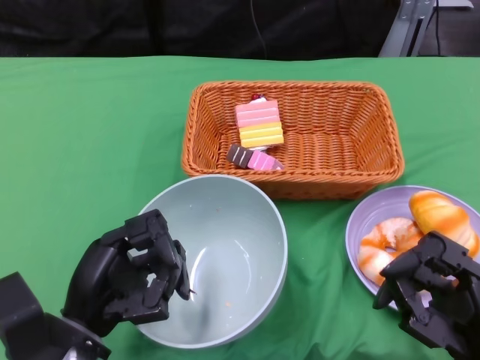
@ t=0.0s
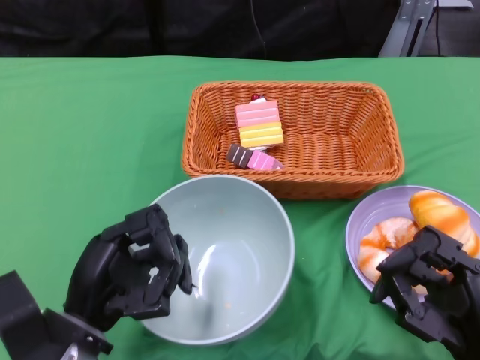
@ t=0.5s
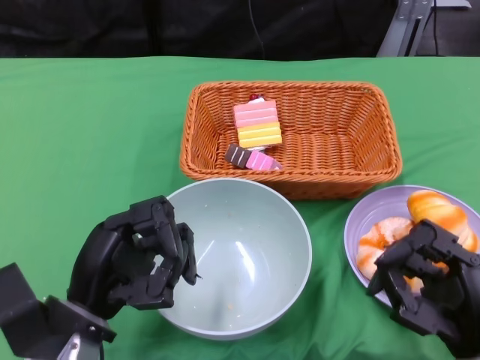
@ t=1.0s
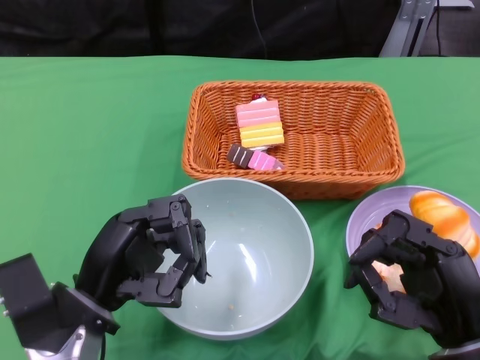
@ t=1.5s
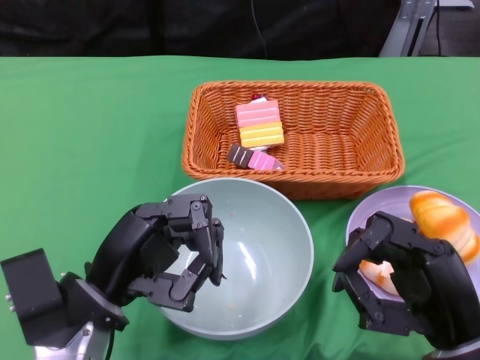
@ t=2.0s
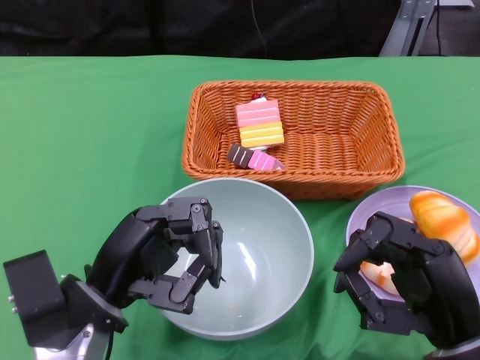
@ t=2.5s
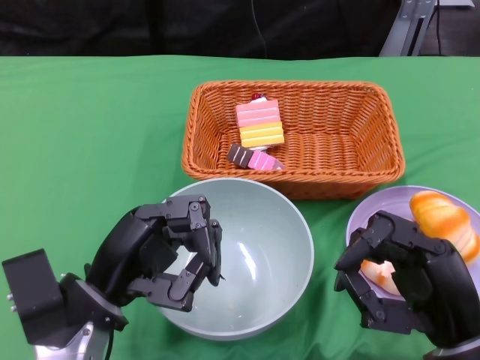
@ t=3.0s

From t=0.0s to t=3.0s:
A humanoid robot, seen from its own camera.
From t=0.0s to t=3.0s: The hands stay close to where they were, moving slightly.

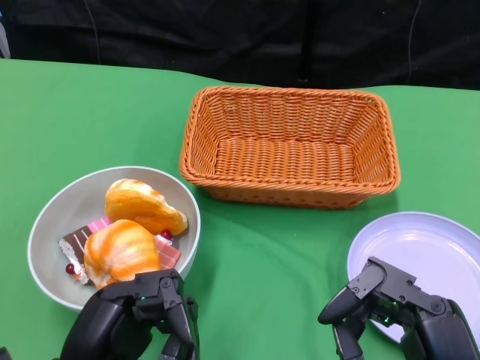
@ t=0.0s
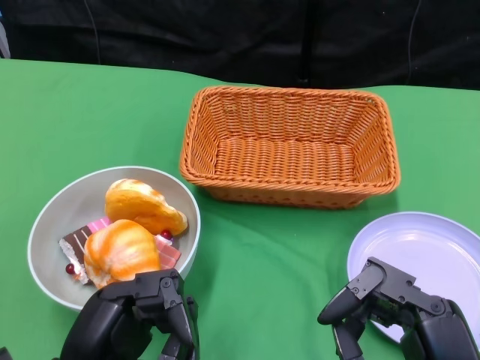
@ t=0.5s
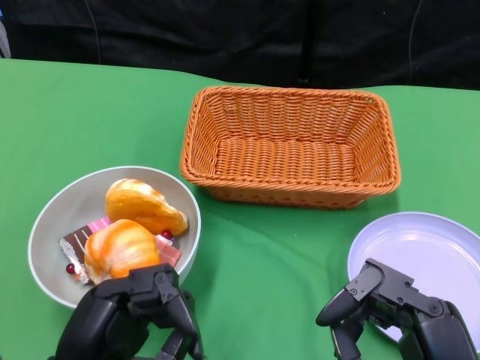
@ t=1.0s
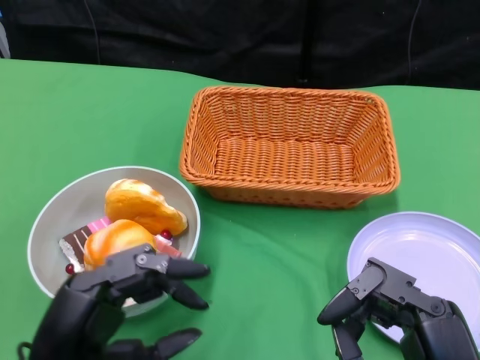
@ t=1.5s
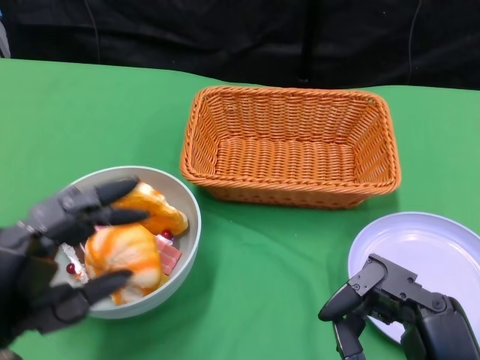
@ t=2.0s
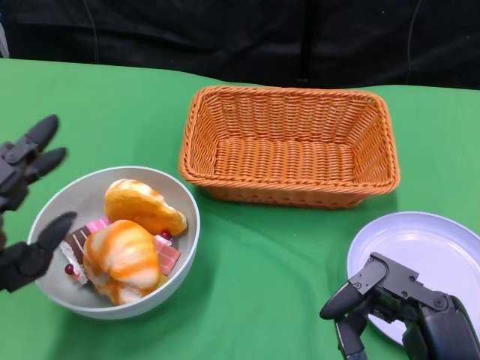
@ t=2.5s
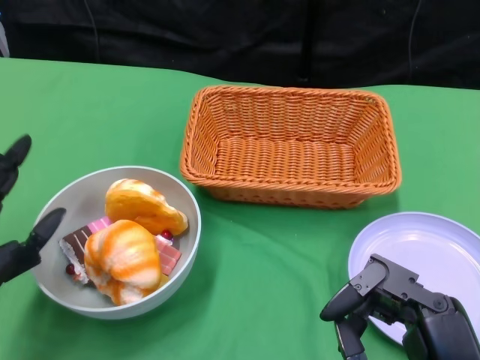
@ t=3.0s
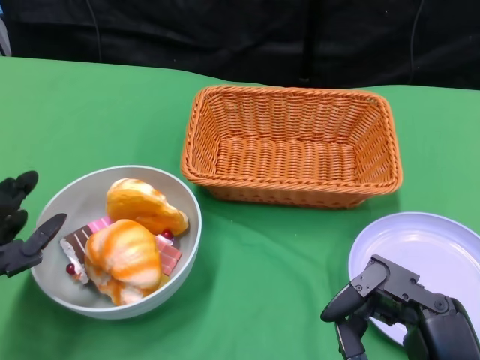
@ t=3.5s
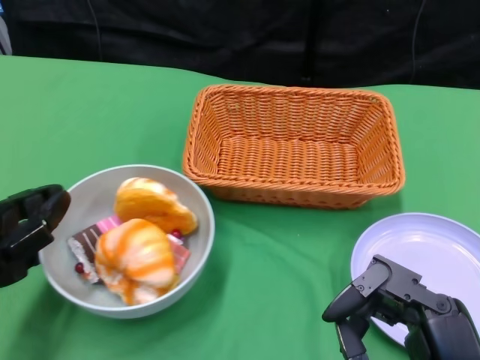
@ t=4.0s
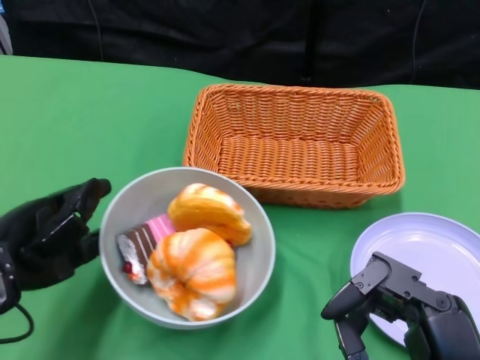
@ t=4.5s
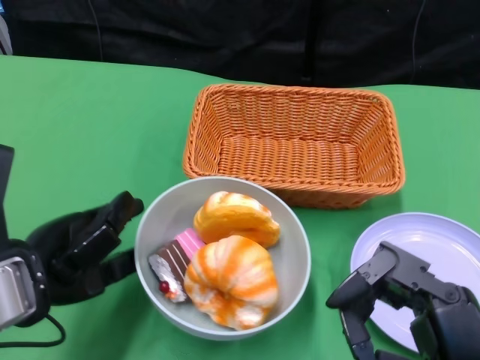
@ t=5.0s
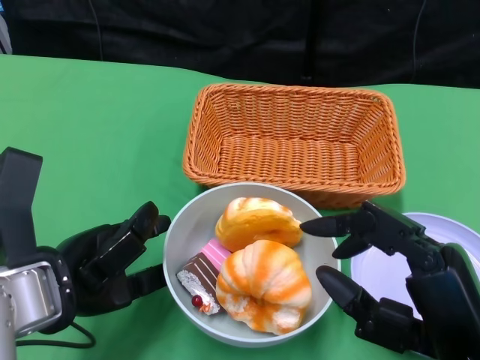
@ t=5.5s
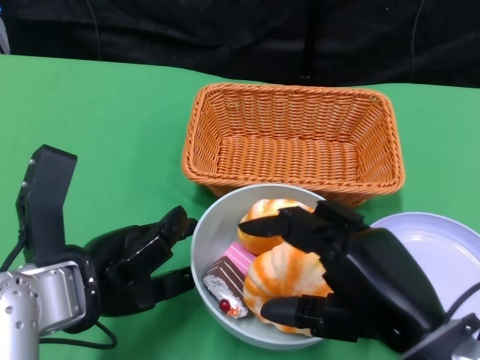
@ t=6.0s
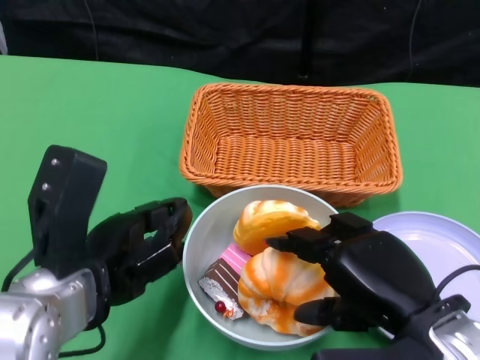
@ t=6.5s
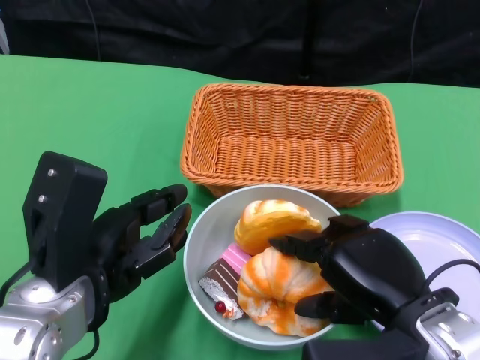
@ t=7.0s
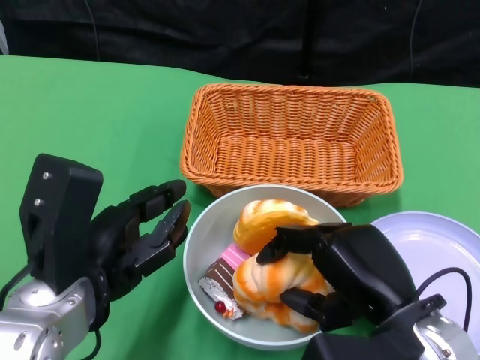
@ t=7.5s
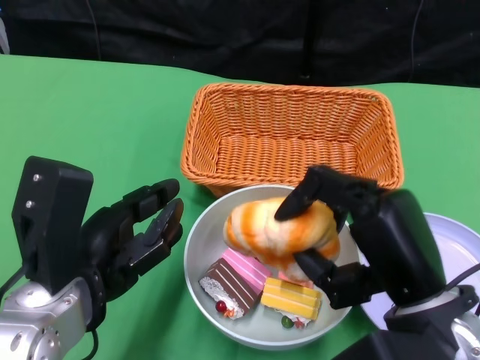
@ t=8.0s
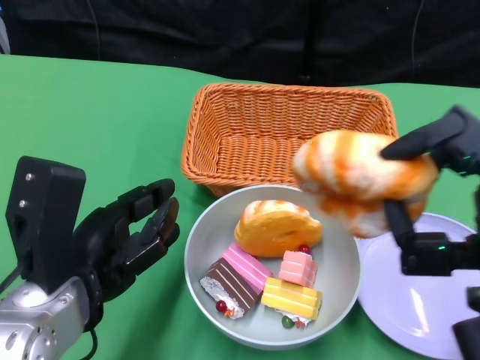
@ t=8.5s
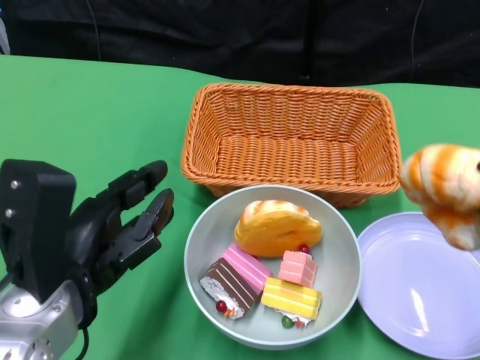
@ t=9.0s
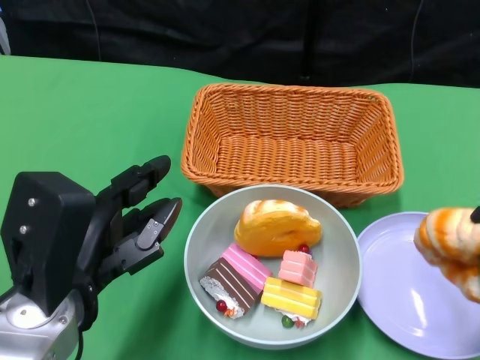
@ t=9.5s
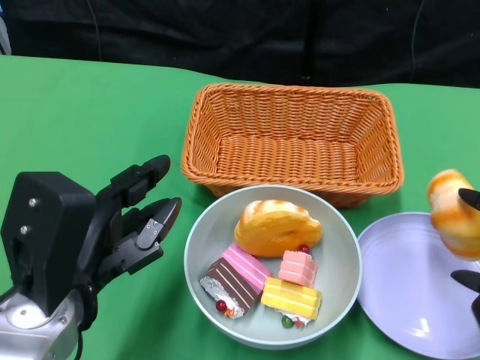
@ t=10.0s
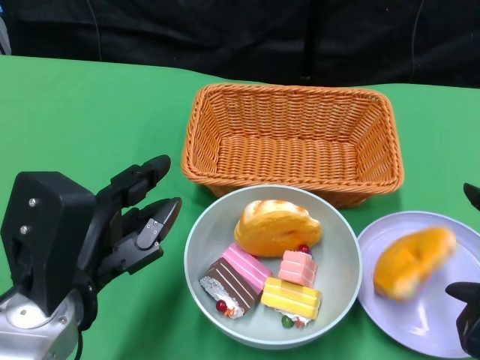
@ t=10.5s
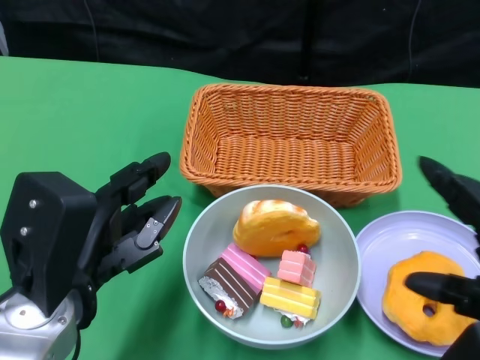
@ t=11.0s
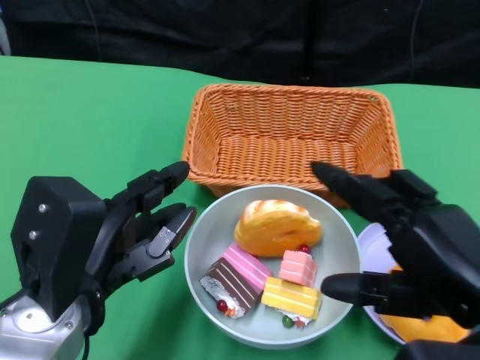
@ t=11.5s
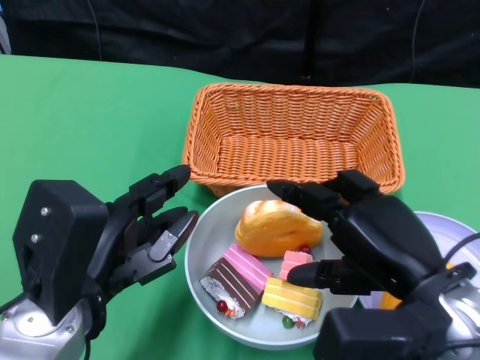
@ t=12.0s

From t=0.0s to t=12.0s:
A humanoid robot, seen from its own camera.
Step, from t=0.0s to t=5.5s: Push the bowl to the center of the table using the left gripper.
From t=2.0s to t=4.0s: The left hand goes about 10 cm forward.
From t=4.0s to t=6.0s: The left hand travels to the right by about 10 cm, while the right hand travels forward by some 5 cm.
From t=8.0s to t=10.0s: The right hand travels to the right by some 15 cm.
From t=10.0s to t=12.0s: The right hand travels to the left by about 10 cm.

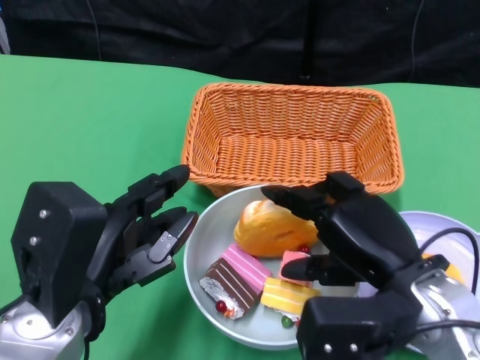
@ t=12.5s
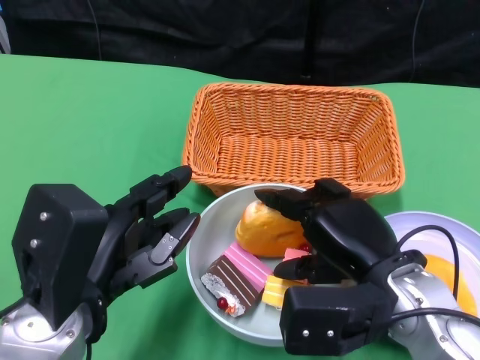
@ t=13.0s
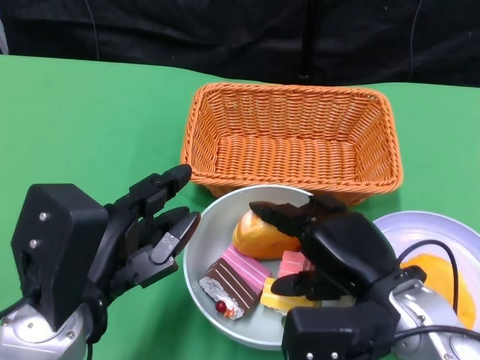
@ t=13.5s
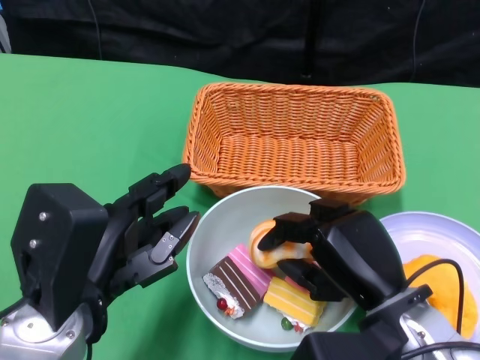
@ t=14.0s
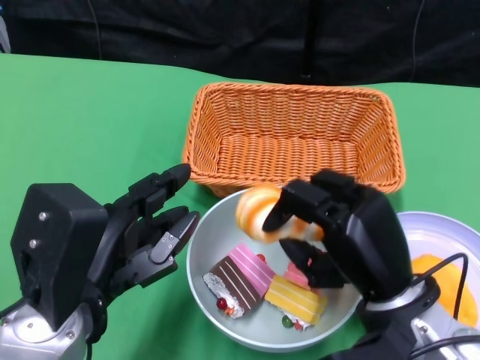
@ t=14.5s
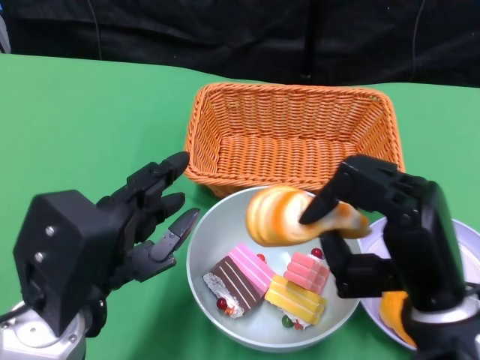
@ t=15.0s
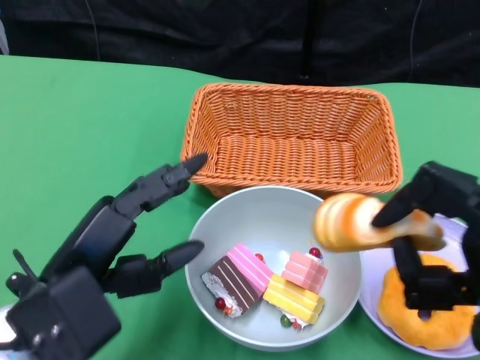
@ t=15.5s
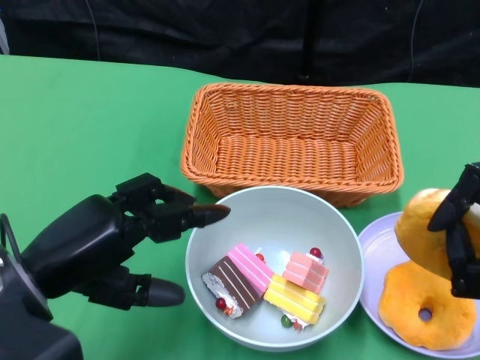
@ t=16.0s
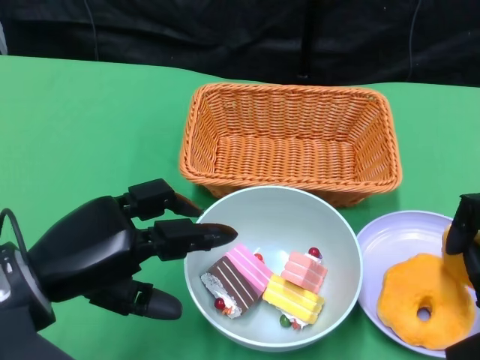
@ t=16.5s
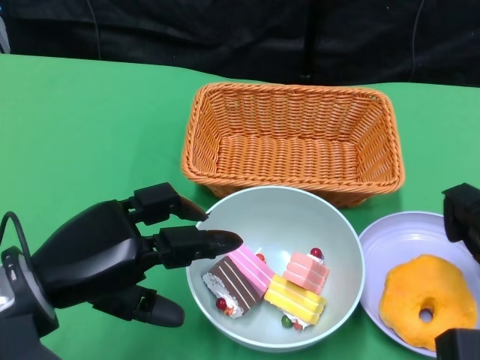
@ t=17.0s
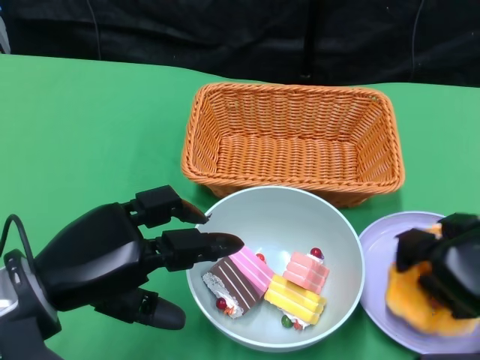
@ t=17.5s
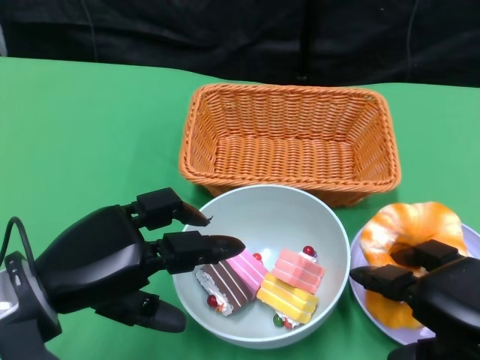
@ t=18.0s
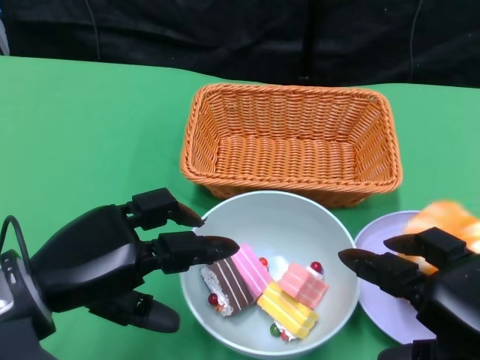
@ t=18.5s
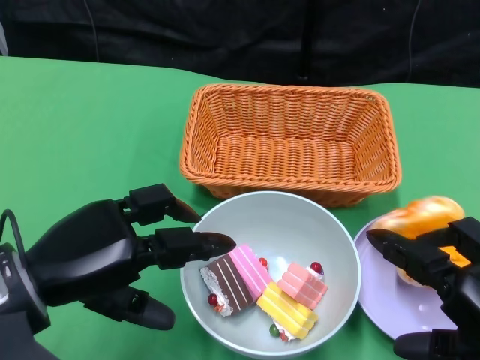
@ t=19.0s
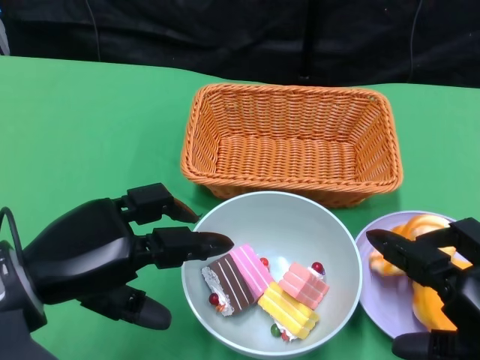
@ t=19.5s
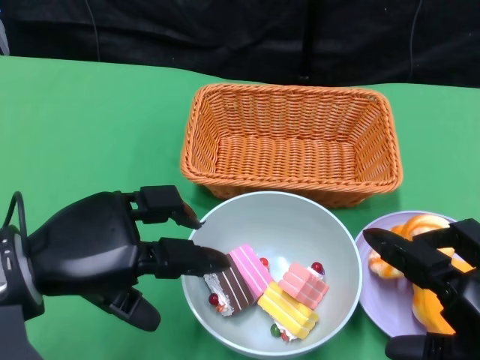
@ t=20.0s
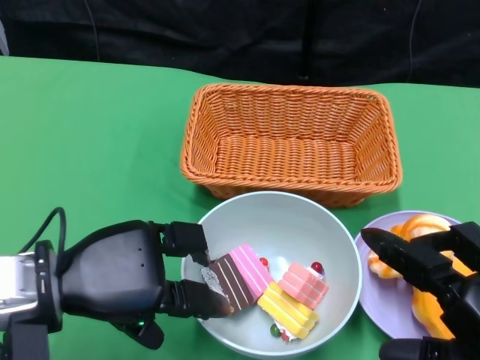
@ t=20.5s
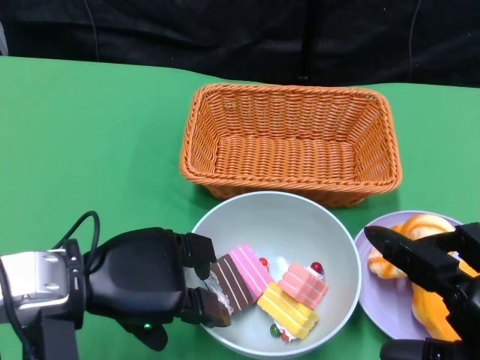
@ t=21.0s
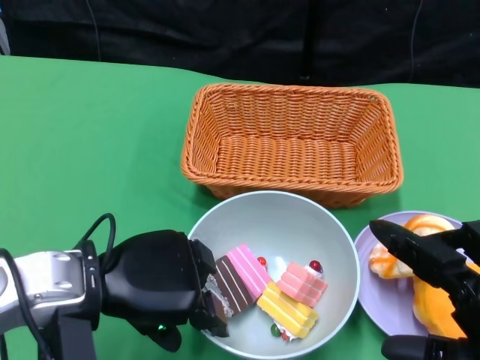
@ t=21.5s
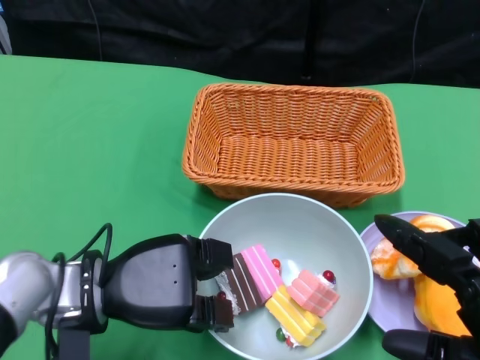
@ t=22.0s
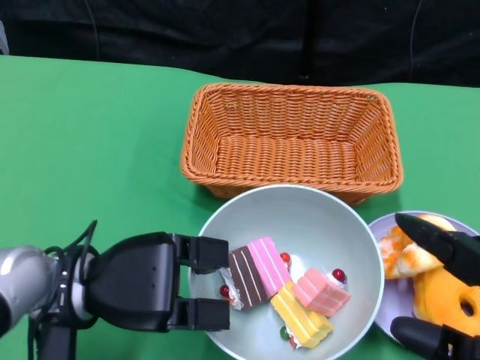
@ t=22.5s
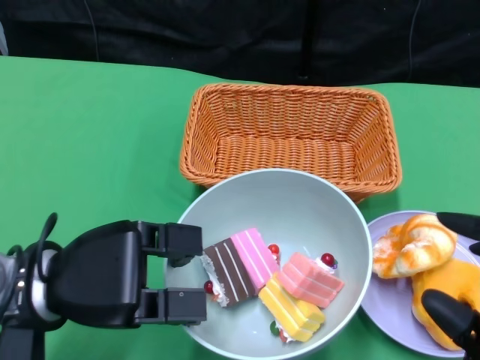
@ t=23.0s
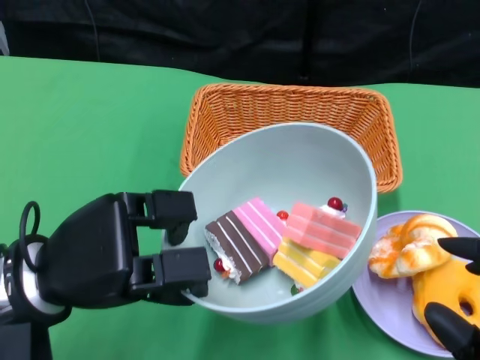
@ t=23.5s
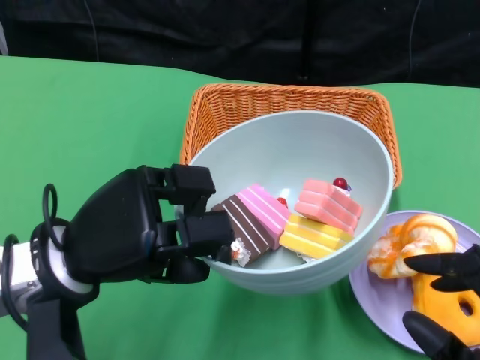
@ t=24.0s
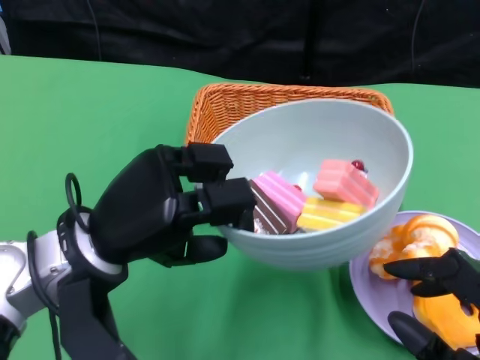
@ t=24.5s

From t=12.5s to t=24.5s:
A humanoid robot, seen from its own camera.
Step, from t=12.5s to t=18.5s: Pick up the bread with the right gripper and place it on the plate.
Step, from t=19.5s to t=22.0s: Grasp the bowl with the left gripper.
From t=14.5s to t=16.5s: The left hand changes place by some 5 cm. The right hand goes roughly 15 cm to the right.
From t=16.5s to t=18.5s: The right hand goes roughly 5 cm upward.
From t=20.5s to t=22.5s: The left hand moves roughly 5 cm.
From t=22.5s to t=24.5s: The left hand moves upward, some 5 cm.
